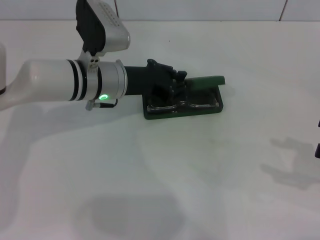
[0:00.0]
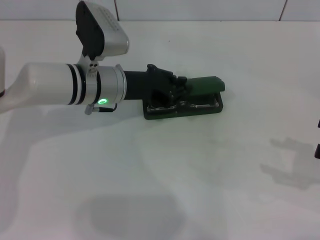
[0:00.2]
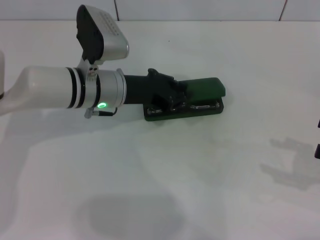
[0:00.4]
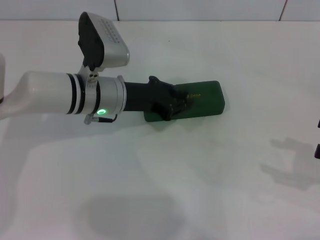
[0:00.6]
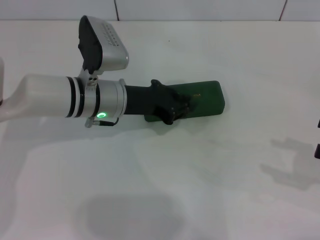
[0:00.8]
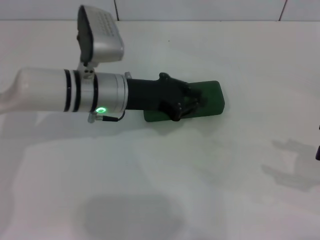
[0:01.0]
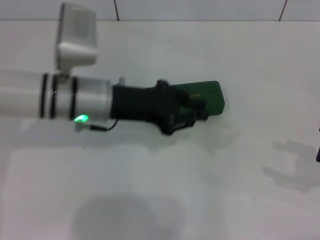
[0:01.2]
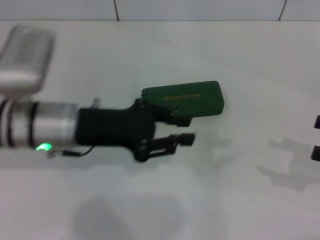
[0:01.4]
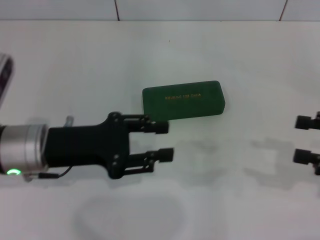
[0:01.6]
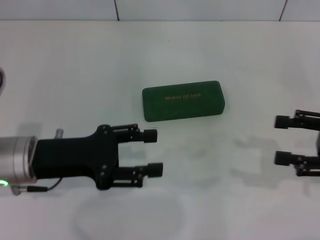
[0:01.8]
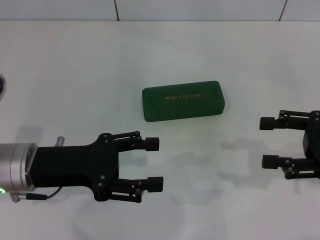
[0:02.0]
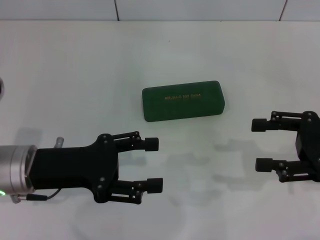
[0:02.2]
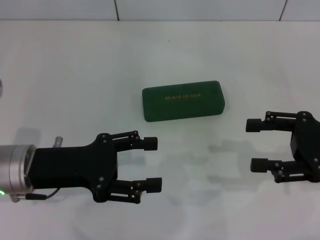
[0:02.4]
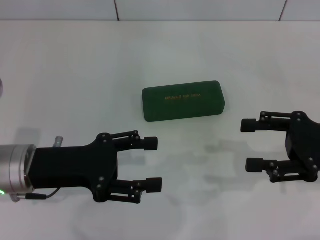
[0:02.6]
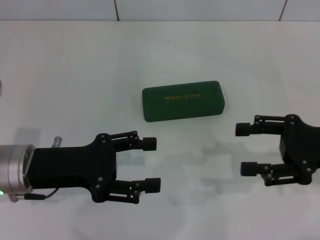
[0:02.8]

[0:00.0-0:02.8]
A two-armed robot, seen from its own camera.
0:00.0 to 0:01.4: The left gripper heads backward and to the left, covering about 10 cm.
0:01.4 to 0:02.8: The right gripper heads to the left, covering some 10 cm, while the left gripper shifts some 5 cm to the left and backward, and opens.

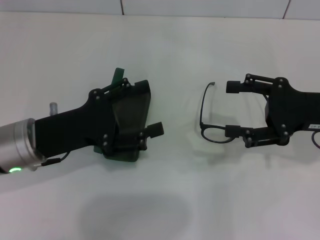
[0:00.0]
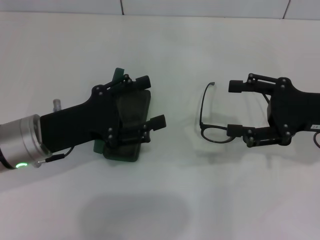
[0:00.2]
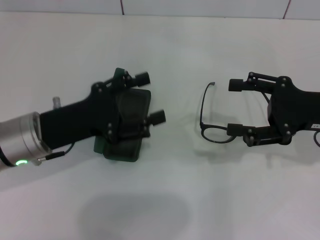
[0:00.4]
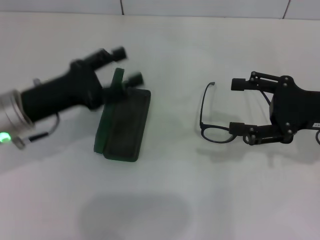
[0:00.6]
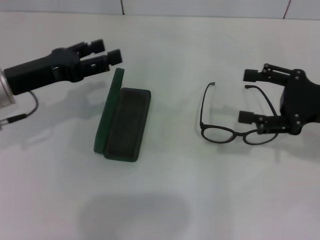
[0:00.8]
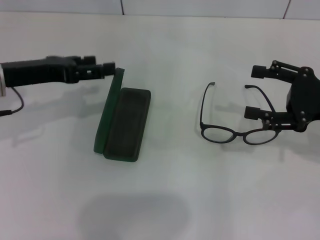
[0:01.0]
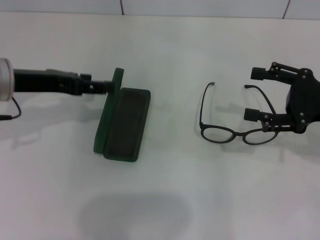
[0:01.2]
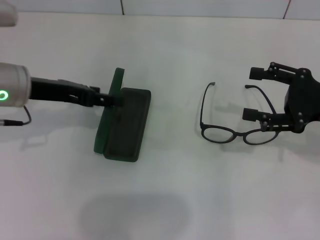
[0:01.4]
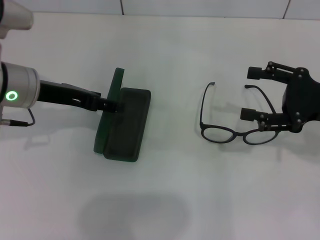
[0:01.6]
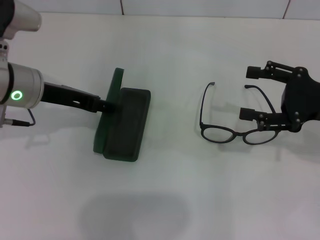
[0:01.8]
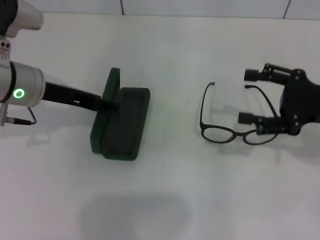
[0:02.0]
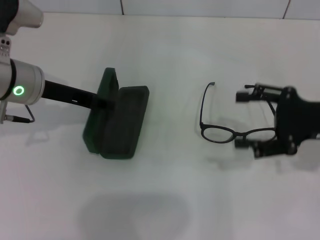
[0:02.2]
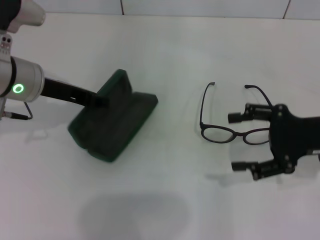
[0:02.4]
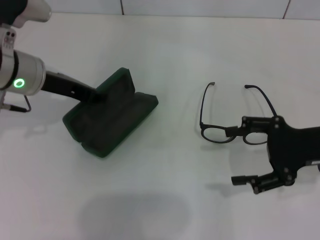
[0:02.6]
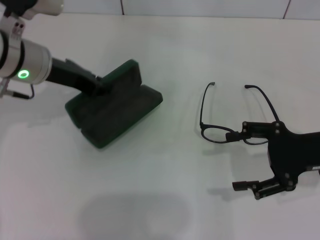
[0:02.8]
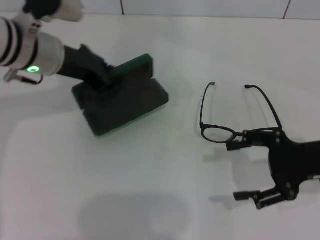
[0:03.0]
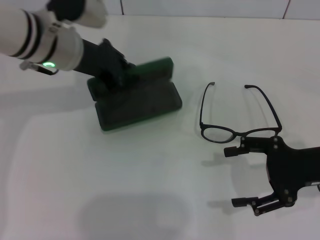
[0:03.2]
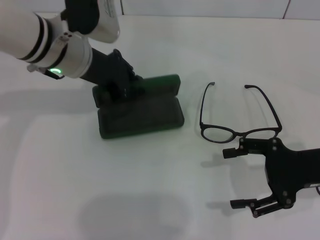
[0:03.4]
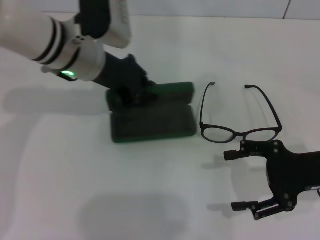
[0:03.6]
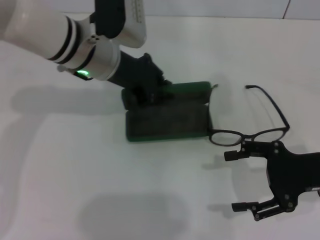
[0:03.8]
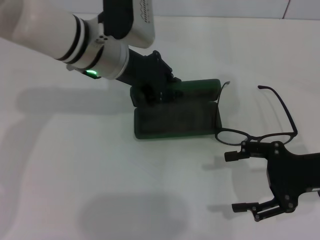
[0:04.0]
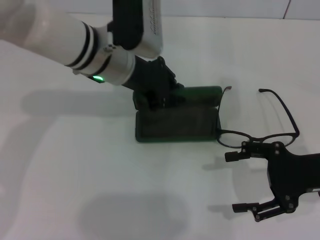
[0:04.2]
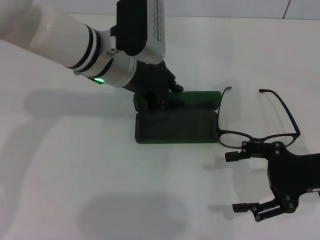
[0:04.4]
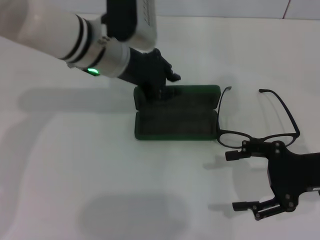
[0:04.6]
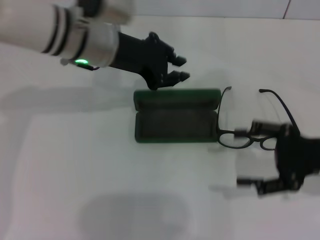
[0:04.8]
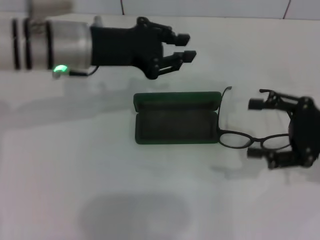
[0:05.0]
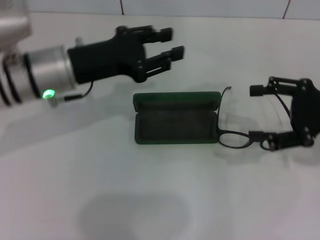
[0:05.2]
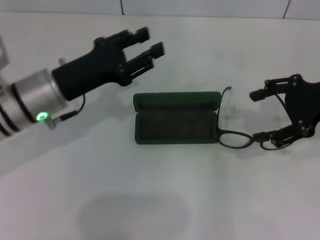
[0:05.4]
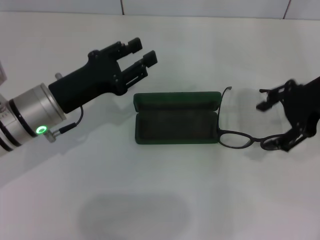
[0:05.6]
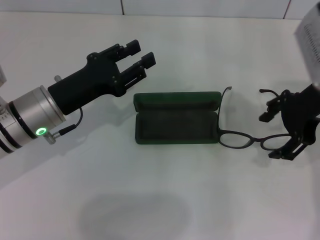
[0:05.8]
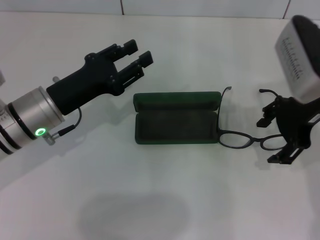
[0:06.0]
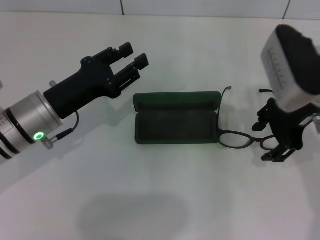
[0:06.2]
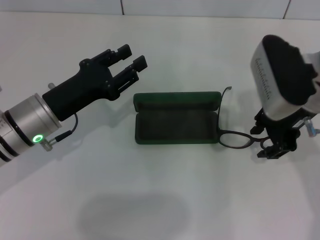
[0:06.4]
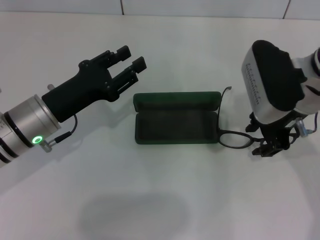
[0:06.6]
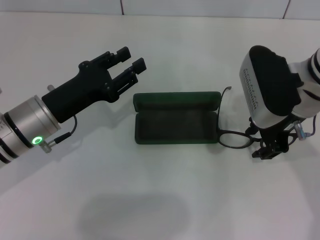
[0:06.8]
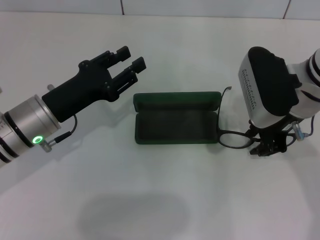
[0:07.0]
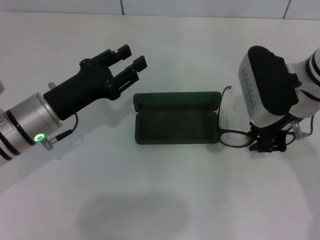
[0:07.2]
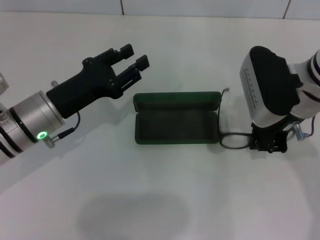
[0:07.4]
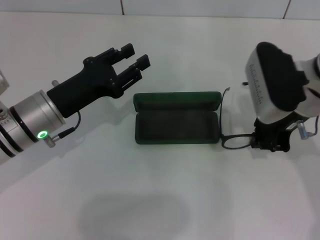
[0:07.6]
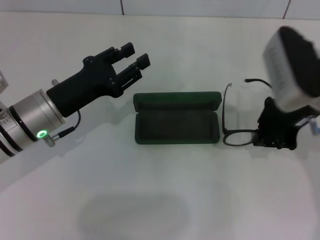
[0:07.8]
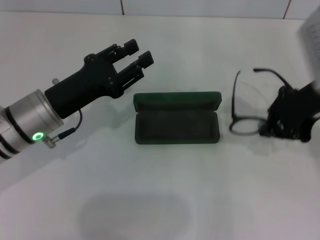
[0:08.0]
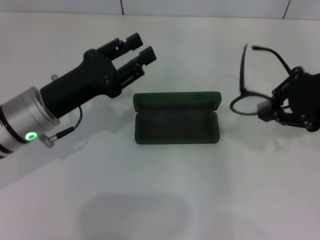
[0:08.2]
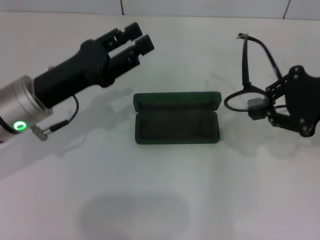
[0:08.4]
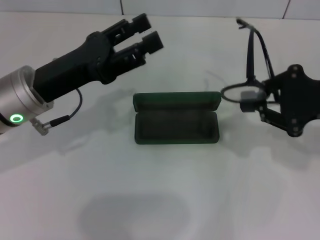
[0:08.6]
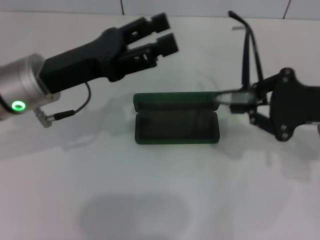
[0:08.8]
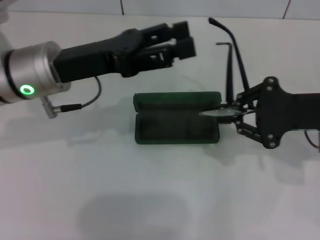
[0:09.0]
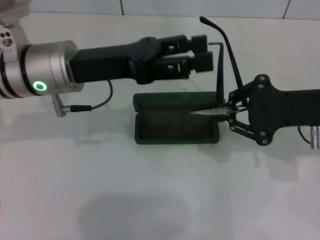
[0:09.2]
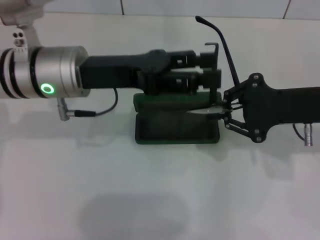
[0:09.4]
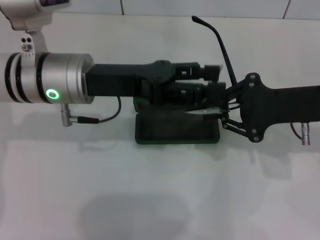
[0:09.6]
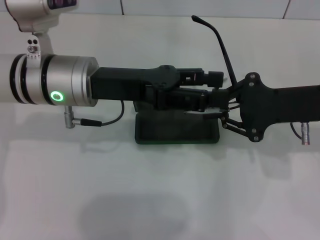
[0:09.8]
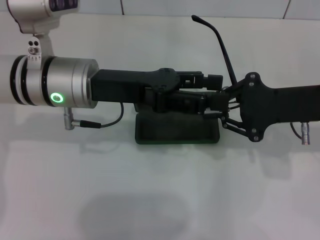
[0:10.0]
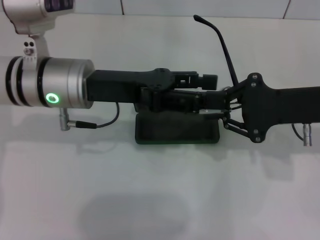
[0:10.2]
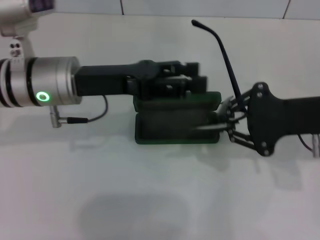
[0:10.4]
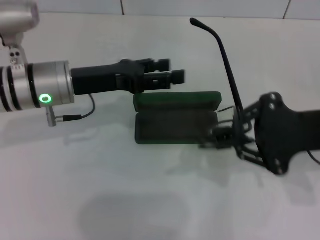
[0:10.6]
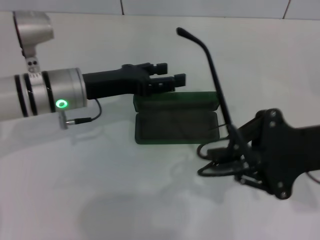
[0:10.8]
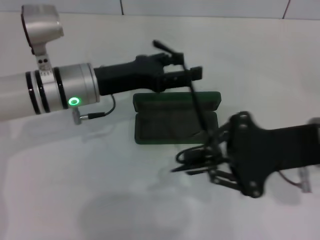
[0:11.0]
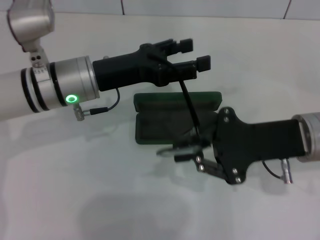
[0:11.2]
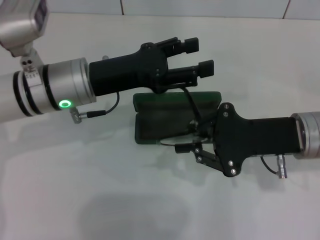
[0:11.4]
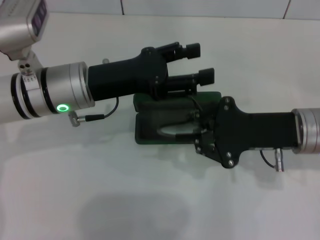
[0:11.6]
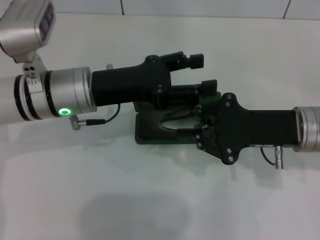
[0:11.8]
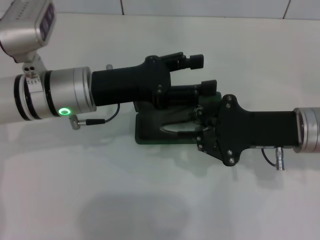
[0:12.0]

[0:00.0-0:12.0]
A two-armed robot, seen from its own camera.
Step, 0:00.0 to 0:02.4: Grab the glasses case with your left hand.
Step, 0:02.8 to 0:04.8: Place the glasses case in the center of the table with your left hand.
Step, 0:05.2 to 0:07.4: Grab the eyeglass frame with your right hand.
Step, 0:07.6 to 0:11.8: Fold the frame with your left hand.
0:00.0 to 0:01.6: The left gripper moves forward and upward, some 10 cm.
0:01.6 to 0:03.0: The left gripper moves approximately 5 cm, and closes its fingers.
0:03.0 to 0:04.4: The left gripper goes about 10 cm to the right.
0:04.4 to 0:06.0: The left gripper travels to the left, backward and downward by approximately 15 cm, and opens up. Meanwhile the right gripper heads upward, forward and to the left, covering approximately 15 cm.
0:06.0 to 0:07.6: The right gripper closes up.
0:07.6 to 0:09.0: The right gripper heads to the right, covering roughly 10 cm. Meanwhile the left gripper heads upward, covering some 10 cm, and opens.
0:10.4 to 0:12.0: The right gripper changes place by roughly 5 cm.

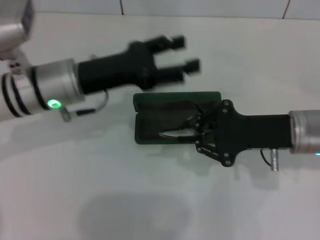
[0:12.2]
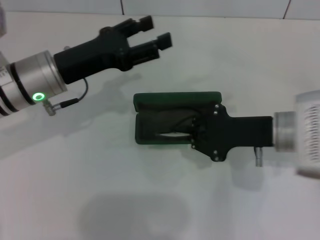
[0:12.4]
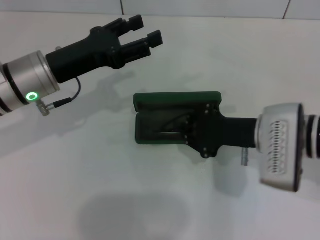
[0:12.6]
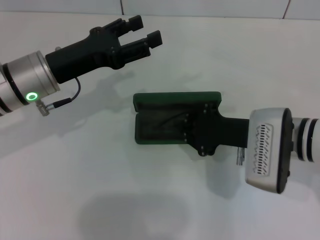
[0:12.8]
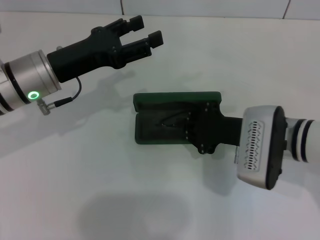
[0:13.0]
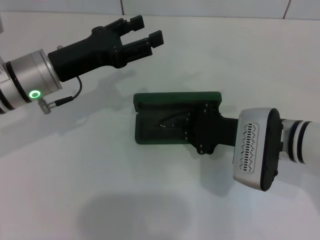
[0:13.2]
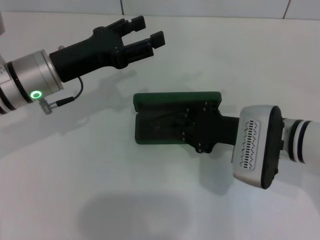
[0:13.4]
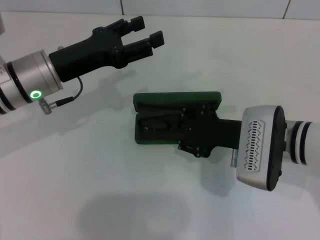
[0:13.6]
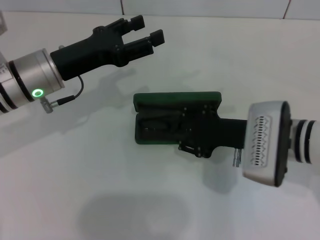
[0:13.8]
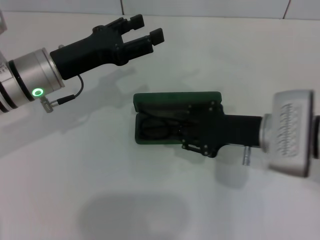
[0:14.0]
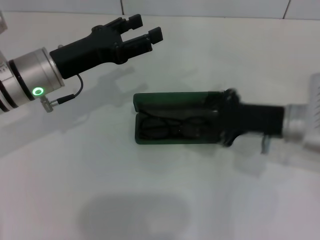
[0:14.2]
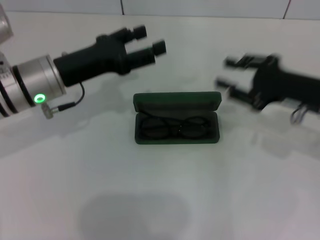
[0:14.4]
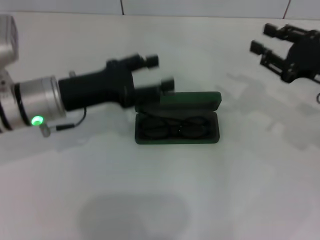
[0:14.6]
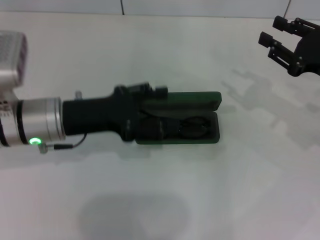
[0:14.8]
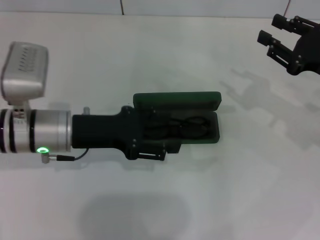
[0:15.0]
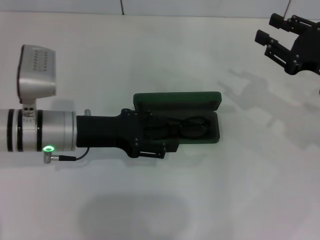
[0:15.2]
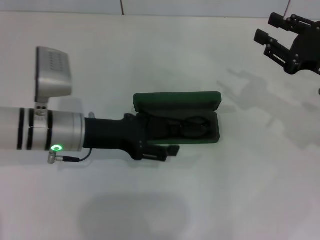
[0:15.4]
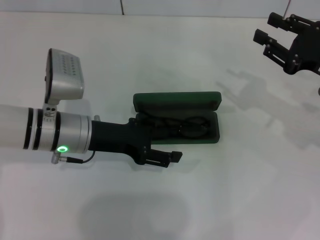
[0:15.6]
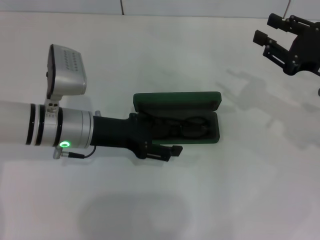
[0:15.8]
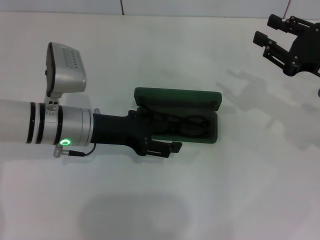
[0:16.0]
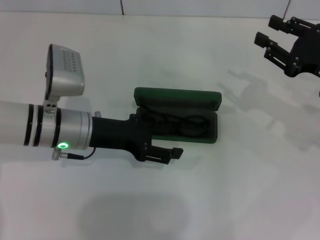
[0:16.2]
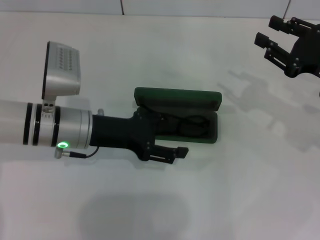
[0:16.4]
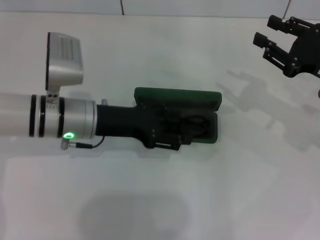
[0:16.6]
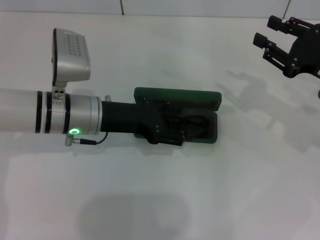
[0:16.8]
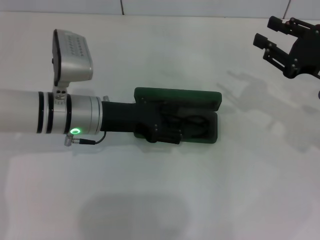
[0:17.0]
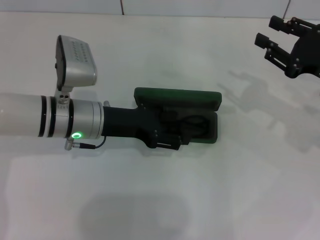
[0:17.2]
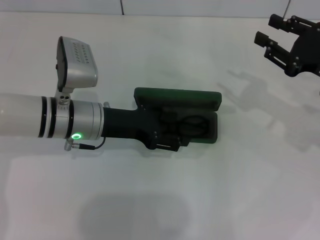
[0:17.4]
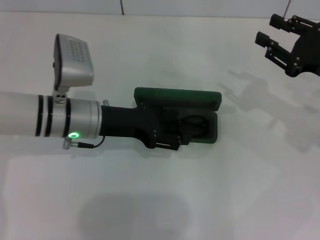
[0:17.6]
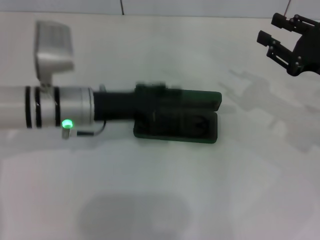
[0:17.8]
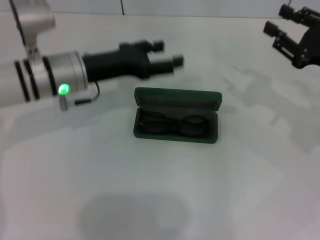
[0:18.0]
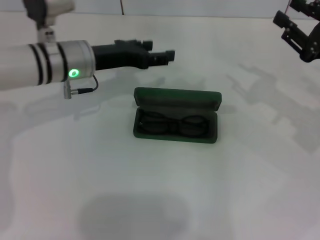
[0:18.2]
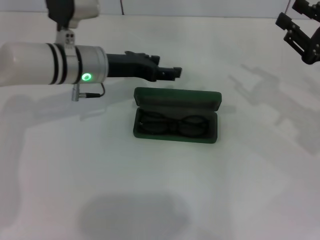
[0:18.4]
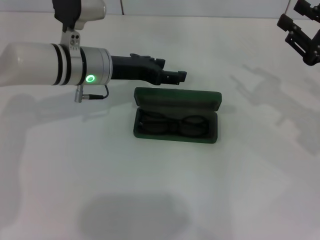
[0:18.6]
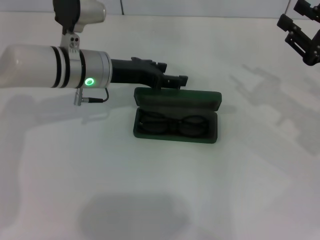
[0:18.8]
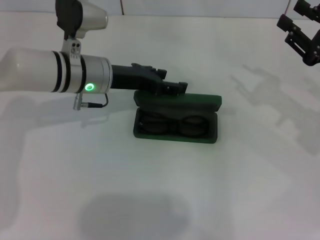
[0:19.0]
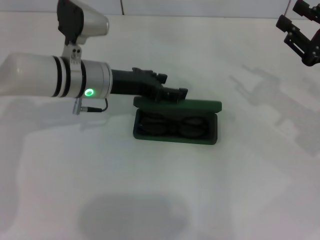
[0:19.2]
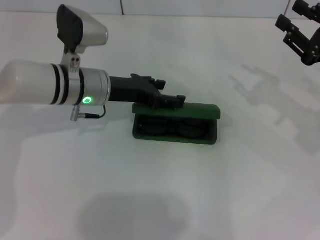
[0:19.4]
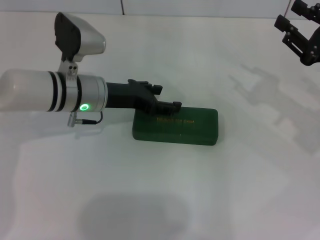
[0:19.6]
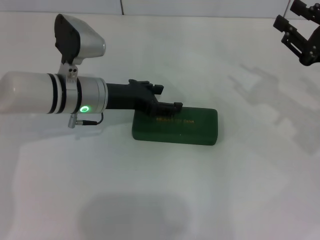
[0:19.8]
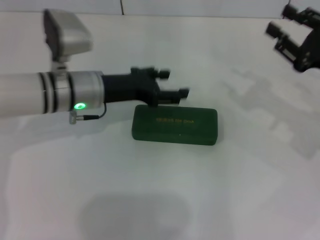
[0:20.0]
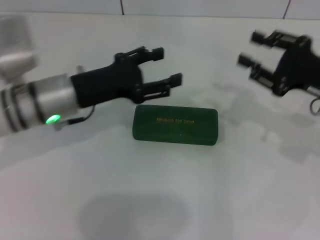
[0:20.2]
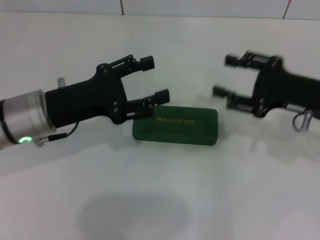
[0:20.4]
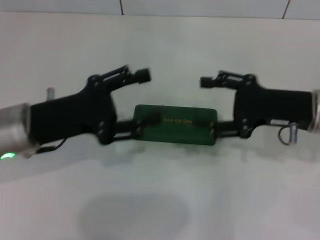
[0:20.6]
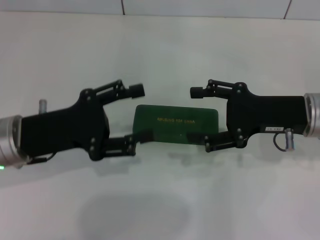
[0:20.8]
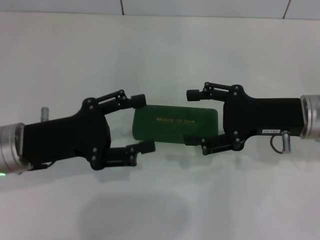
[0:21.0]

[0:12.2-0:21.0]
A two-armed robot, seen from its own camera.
Step, 0:12.2 to 0:14.2: Put the glasses into the case with your right hand.
Step, 0:14.4 to 0:19.6: Close the glasses case with your left hand.
0:12.2 to 0:13.6: The right gripper moves some 5 cm.
0:13.6 to 0:15.2: The right gripper goes some 15 cm to the right; the left gripper ends up about 5 cm from where it was.
0:15.2 to 0:16.6: The grippers move only a little.
0:16.6 to 0:18.0: The left gripper shifts by roughly 5 cm.
0:19.6 to 0:21.0: The right gripper moves to the left, some 10 cm, and opens up, while the left gripper heads backward and to the left, covering about 15 cm.
